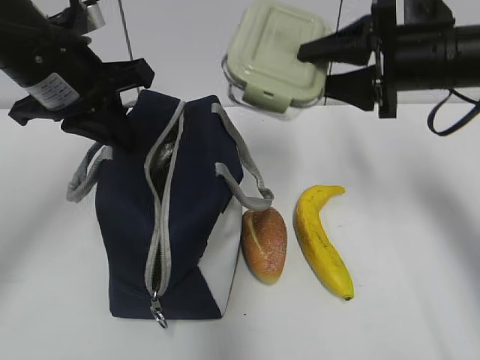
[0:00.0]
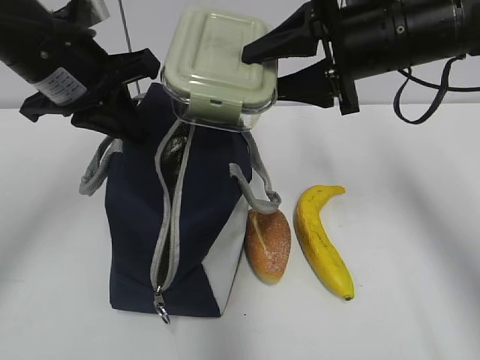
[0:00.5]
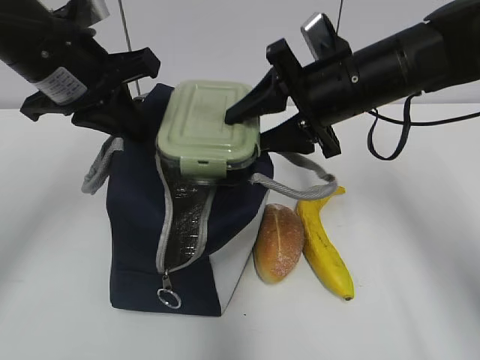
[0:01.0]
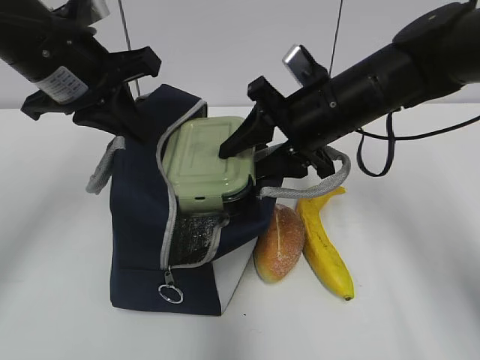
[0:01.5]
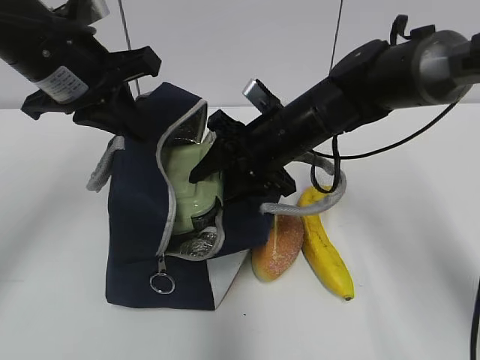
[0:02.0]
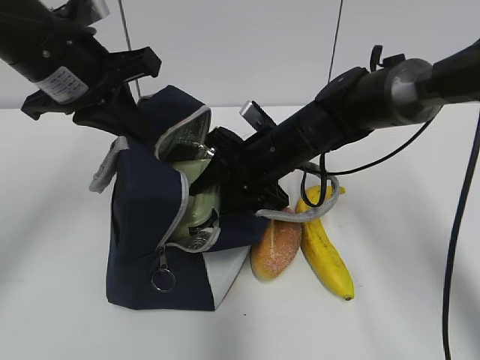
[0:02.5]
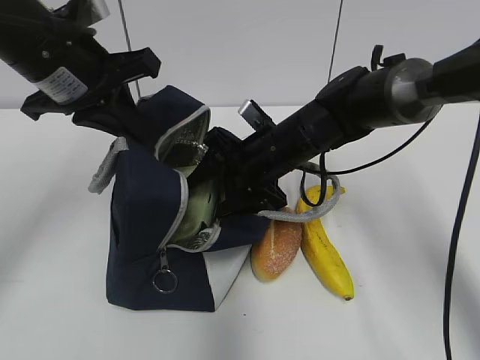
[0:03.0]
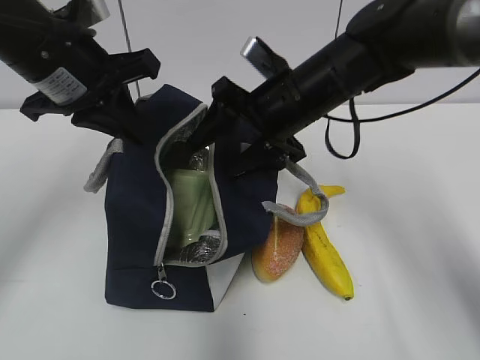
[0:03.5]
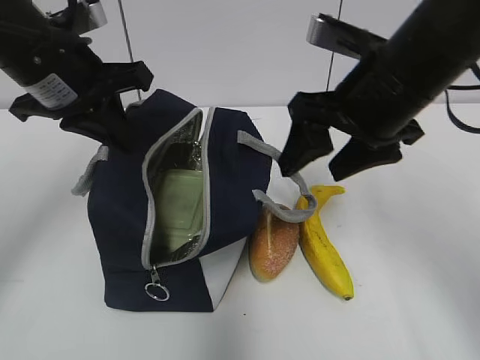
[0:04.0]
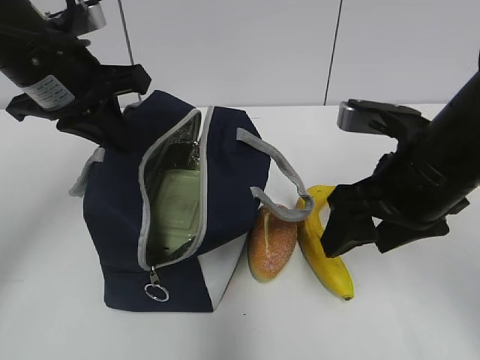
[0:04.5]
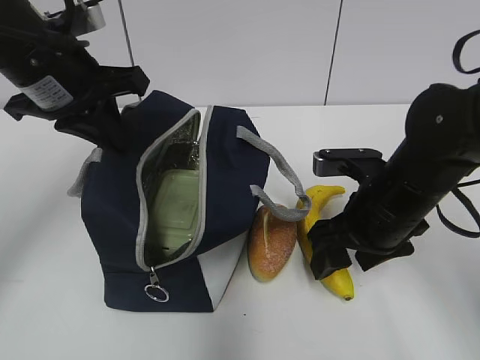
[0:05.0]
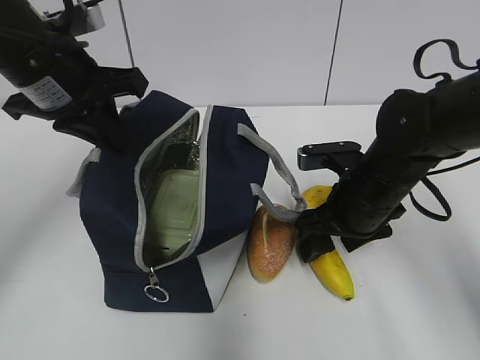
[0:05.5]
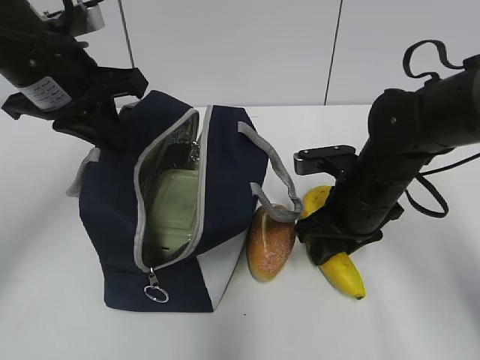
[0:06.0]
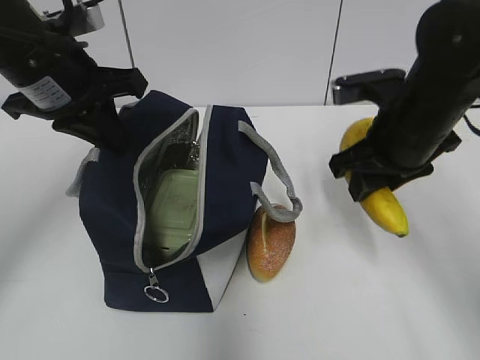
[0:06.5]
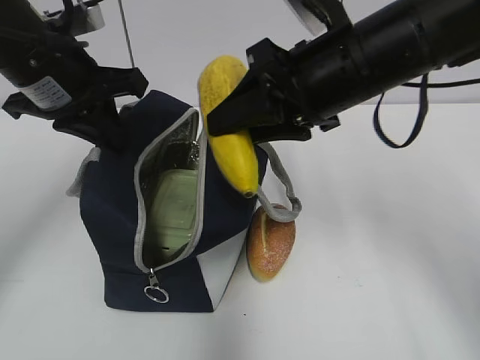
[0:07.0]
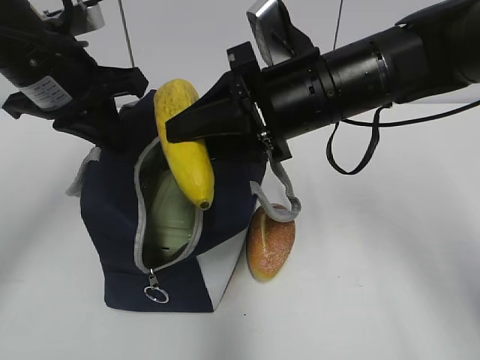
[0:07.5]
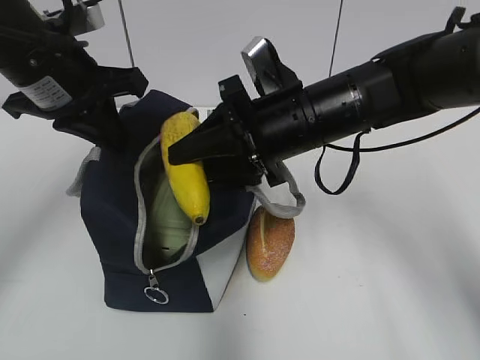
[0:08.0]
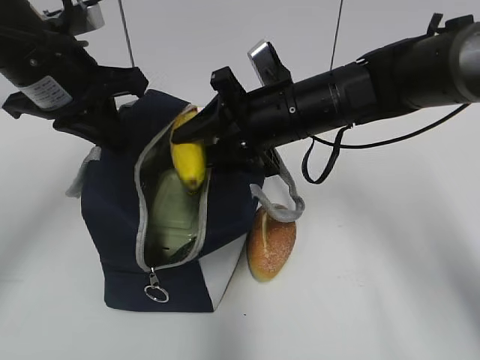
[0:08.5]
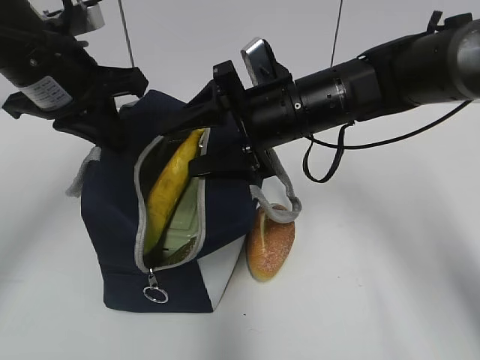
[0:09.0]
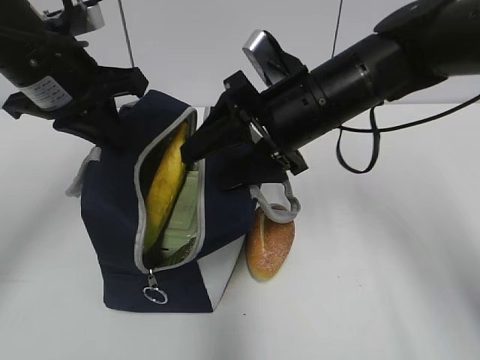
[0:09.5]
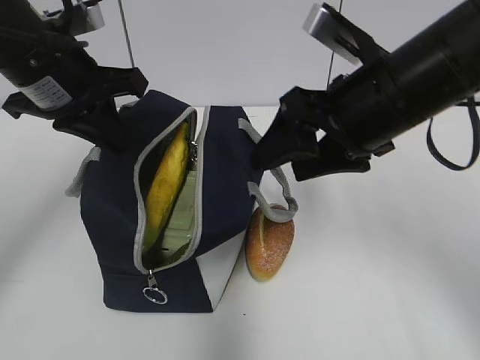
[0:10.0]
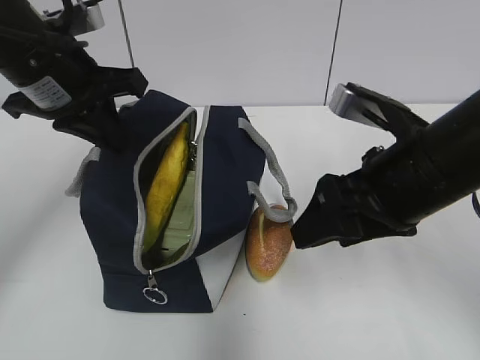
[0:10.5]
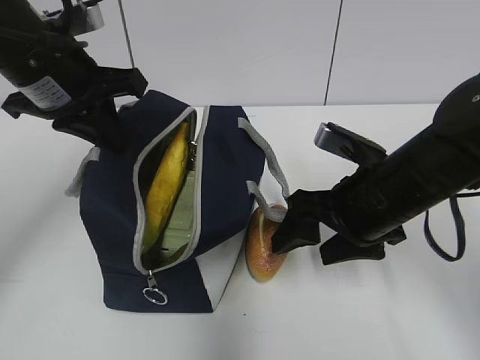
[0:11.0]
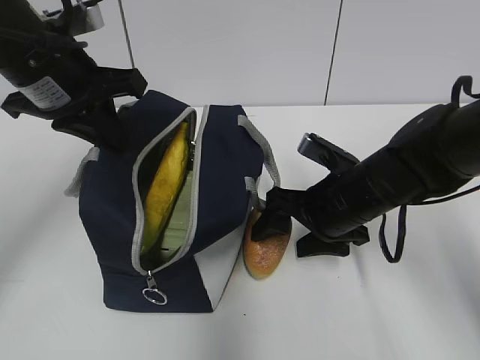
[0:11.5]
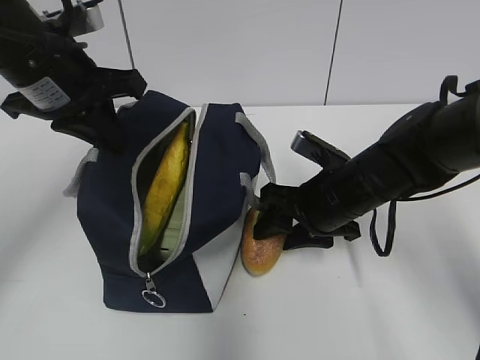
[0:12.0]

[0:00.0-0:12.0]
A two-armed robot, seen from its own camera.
0.0 to 2.0 s: The right gripper heads to the left and downward, covering approximately 15 cm.
2.0 to 4.0 s: The right gripper travels upward, backward and to the right by some 15 cm.
4.0 to 6.0 s: The right gripper travels downward by about 15 cm, and closes up.
6.0 to 8.0 s: The right gripper goes approximately 10 cm upward and to the left.
8.0 to 10.0 s: The right gripper shifts roughly 5 cm to the right, and opens.
10.0 to 12.0 s: The right gripper is displaced downward by about 15 cm.

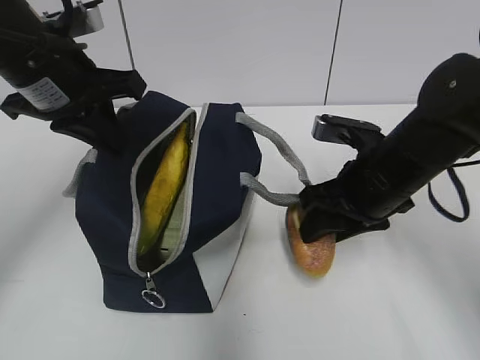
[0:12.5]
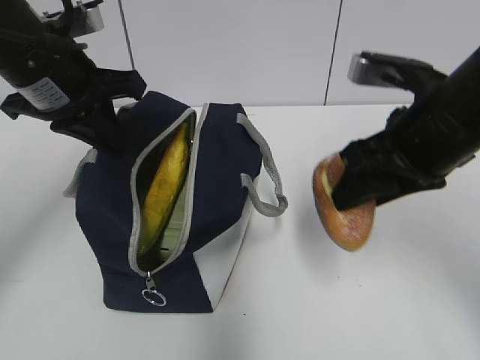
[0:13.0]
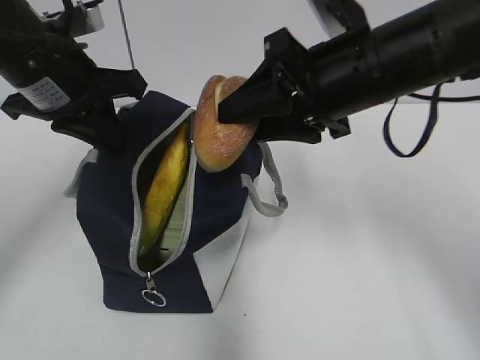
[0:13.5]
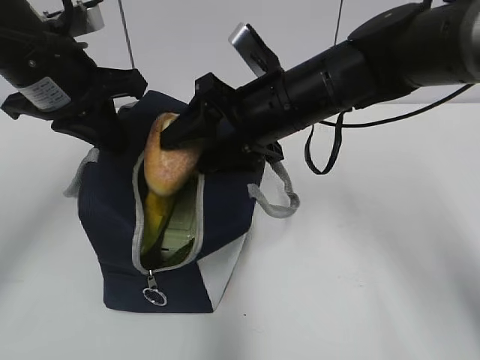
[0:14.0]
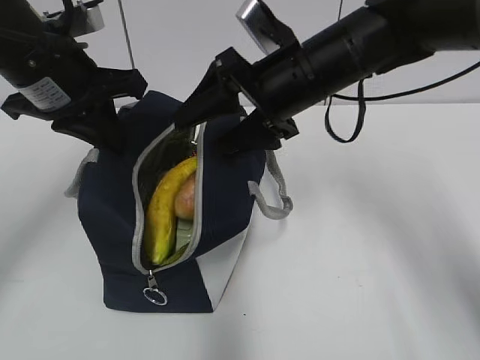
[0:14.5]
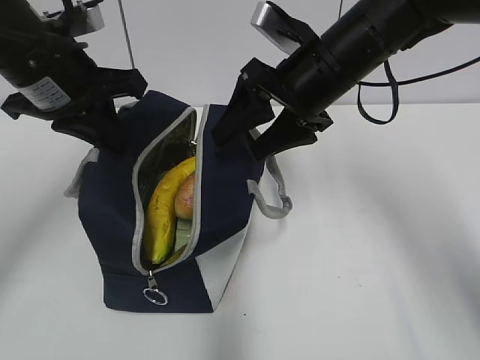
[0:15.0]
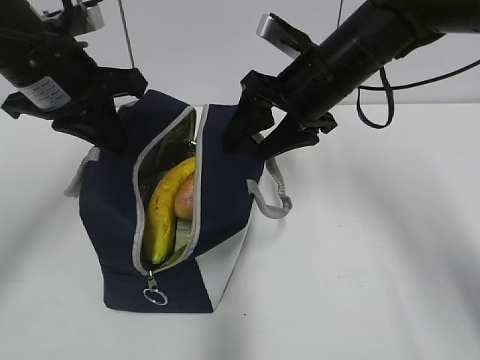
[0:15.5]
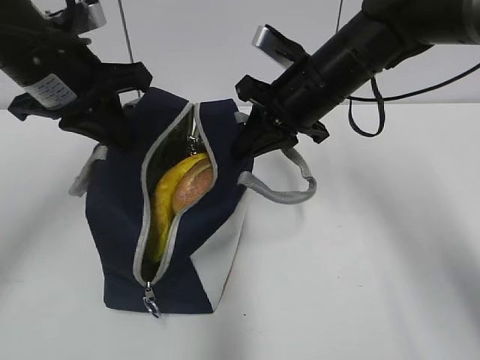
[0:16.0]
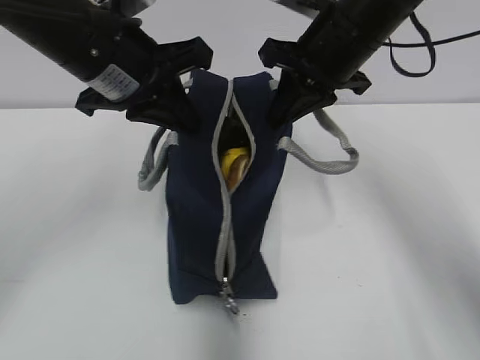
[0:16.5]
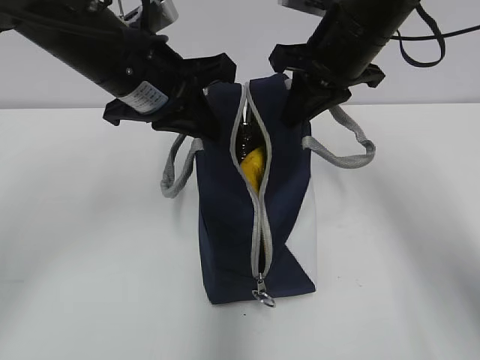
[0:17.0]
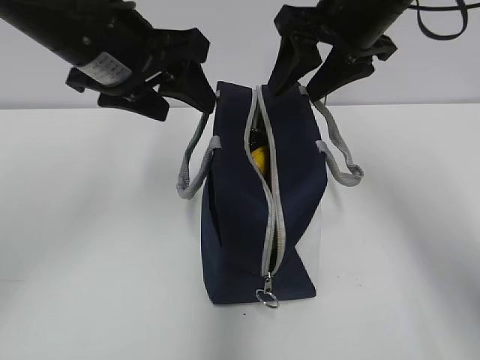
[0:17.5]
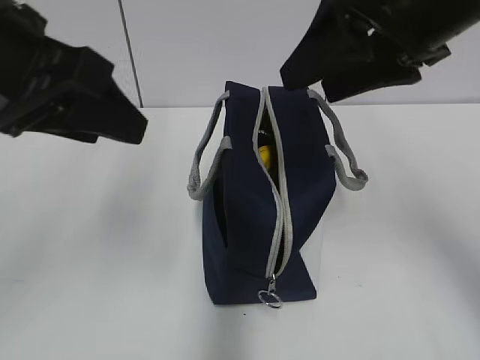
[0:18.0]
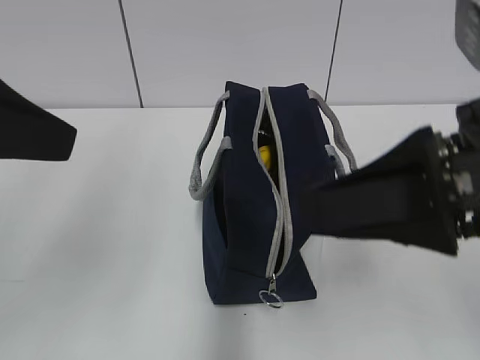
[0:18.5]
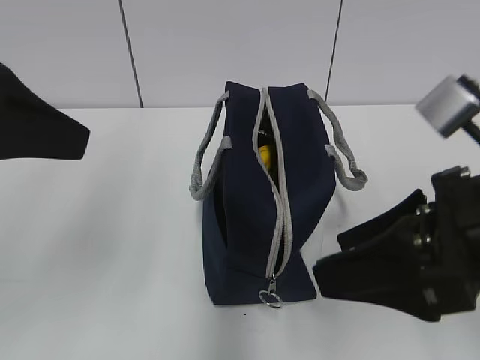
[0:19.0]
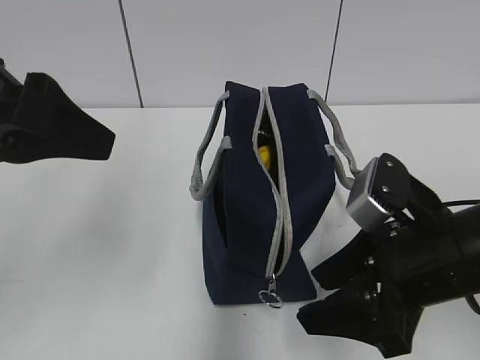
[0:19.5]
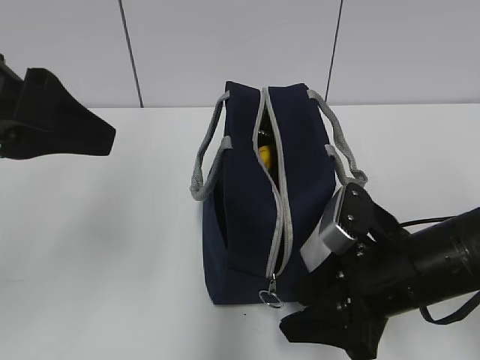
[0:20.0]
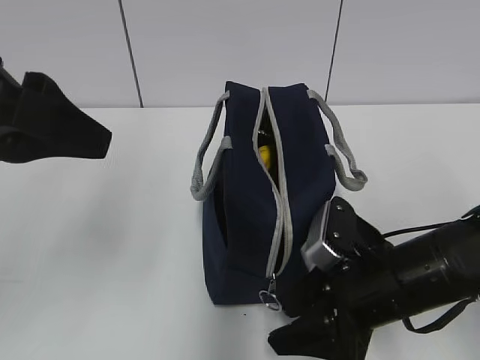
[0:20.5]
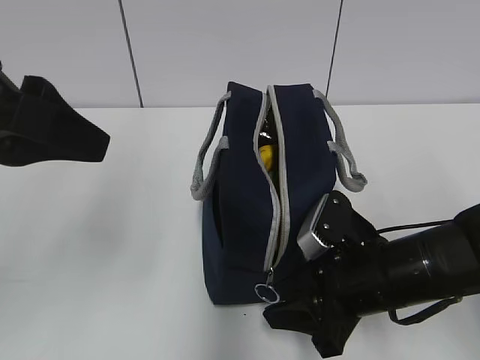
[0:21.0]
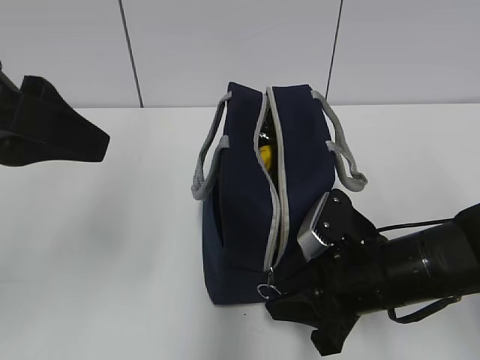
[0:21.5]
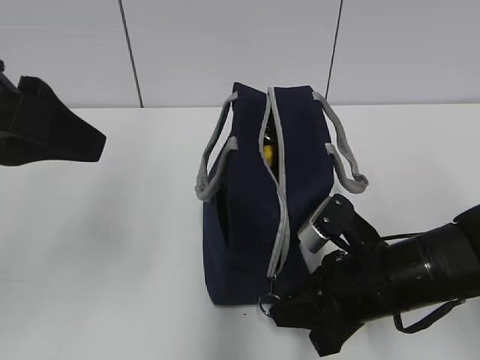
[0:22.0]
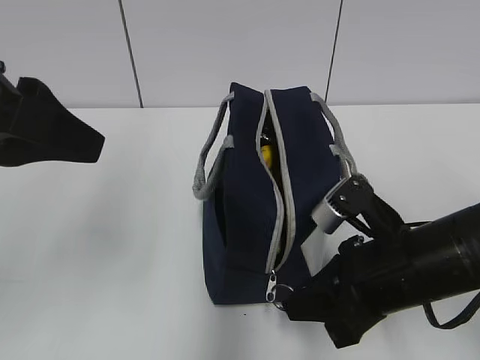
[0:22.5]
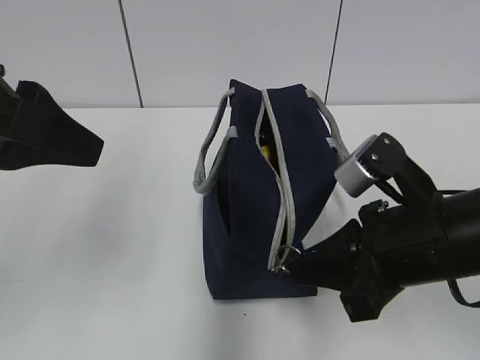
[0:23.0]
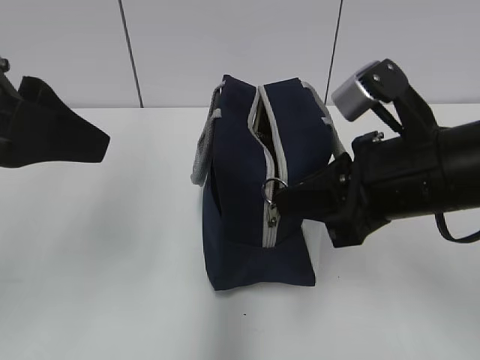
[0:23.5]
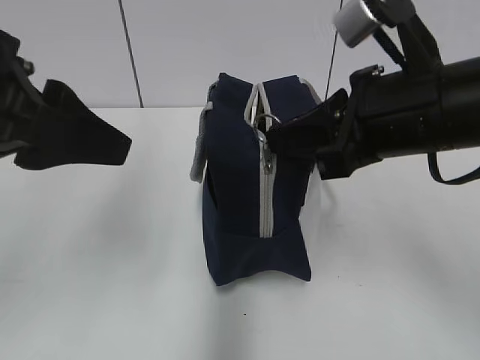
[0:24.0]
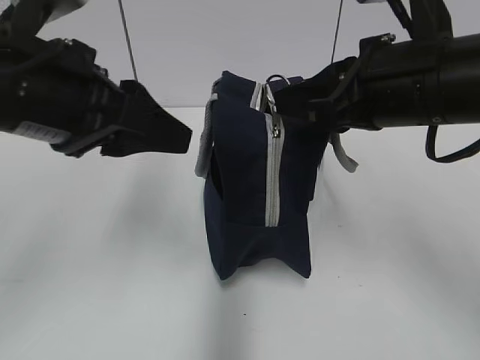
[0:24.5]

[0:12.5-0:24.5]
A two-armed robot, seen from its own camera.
12.5 to 14.5 s: The right gripper shifts roughly 10 cm upward and to the left, and opens up.
14.5 to 16.5 s: The left gripper is displaced to the right by about 5 cm. Meanwhile the right gripper ends up some 5 cm from where it was, and closes its fingers.
16.5 to 18.5 s: The left gripper travels backward and to the left by approximately 20 cm, and opens its fingers, while the right gripper travels backward by about 20 cm, and opens.
18.5 to 20.5 s: The right gripper is displaced downward by about 20 cm.
20.5 to 22.5 s: The right gripper closes.
22.5 to 24.5 s: The left gripper shifts by about 5 cm, while the right gripper moves upward, roughly 15 cm.

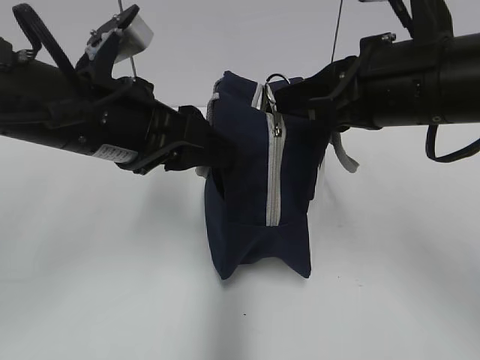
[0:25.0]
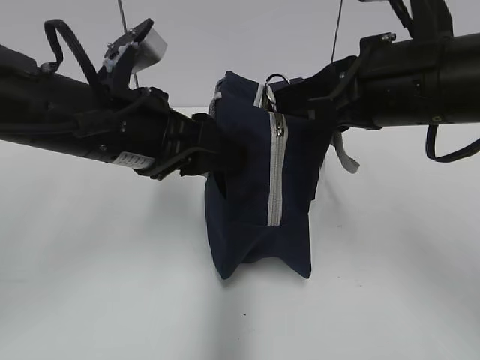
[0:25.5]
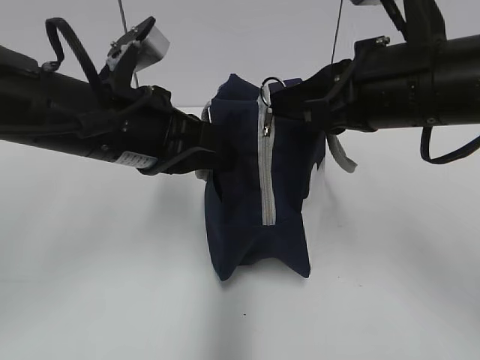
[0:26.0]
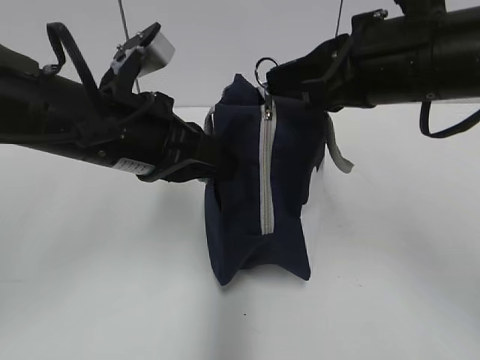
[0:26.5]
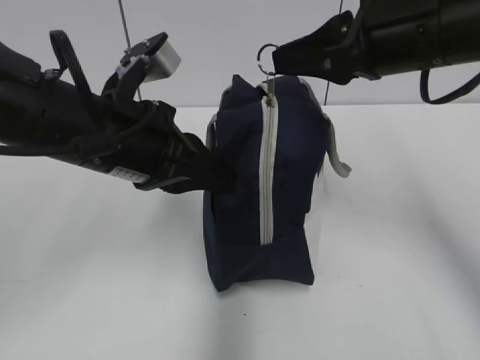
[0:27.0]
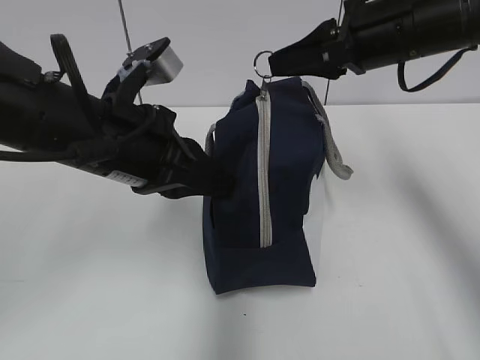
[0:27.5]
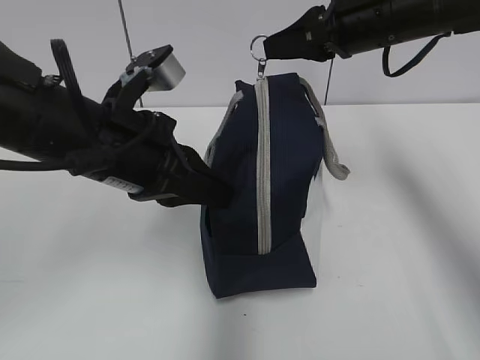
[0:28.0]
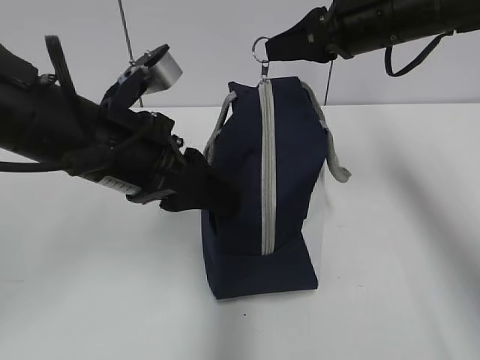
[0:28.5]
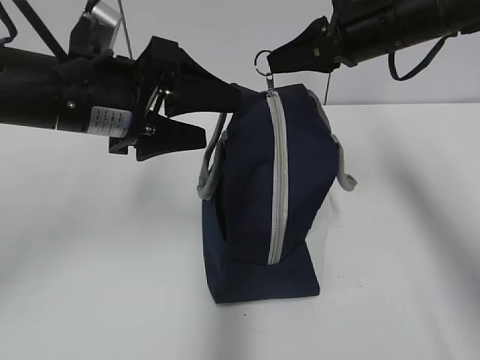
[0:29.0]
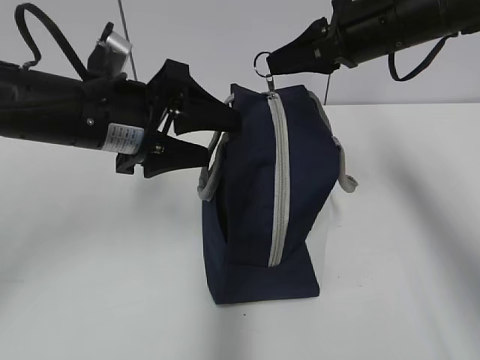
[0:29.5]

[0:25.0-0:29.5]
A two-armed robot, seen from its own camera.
25.0 to 27.0 s: The left gripper closes up.
27.0 to 29.5 s: The left gripper opens its fingers. Meanwhile the right gripper heads forward, covering some 10 cm.
